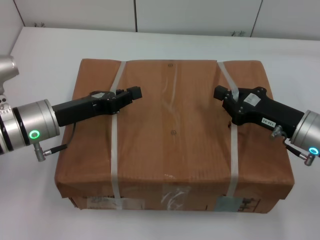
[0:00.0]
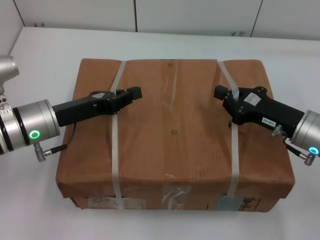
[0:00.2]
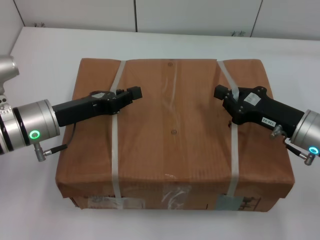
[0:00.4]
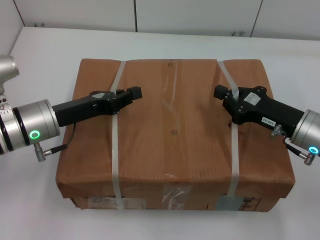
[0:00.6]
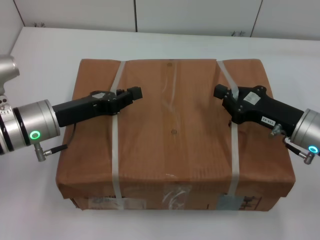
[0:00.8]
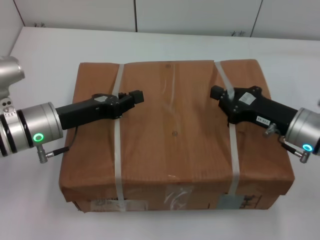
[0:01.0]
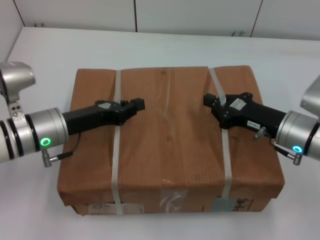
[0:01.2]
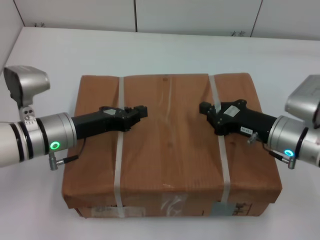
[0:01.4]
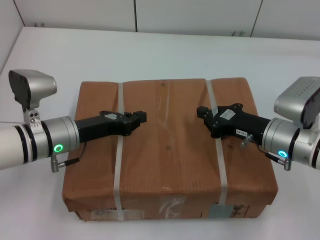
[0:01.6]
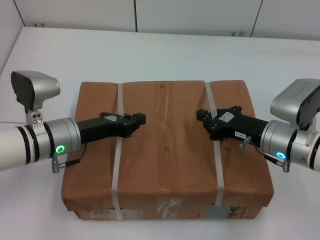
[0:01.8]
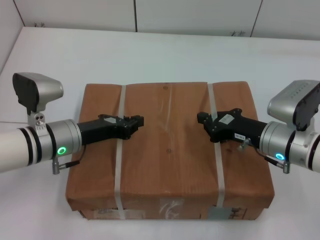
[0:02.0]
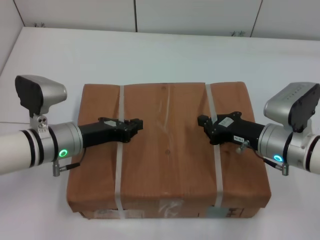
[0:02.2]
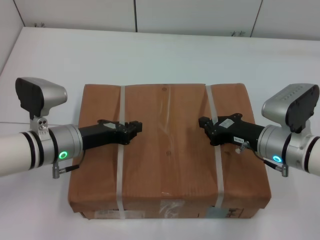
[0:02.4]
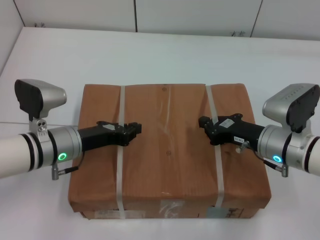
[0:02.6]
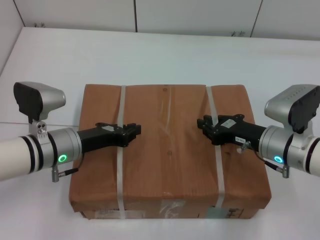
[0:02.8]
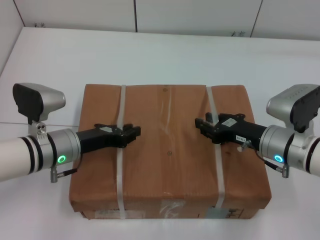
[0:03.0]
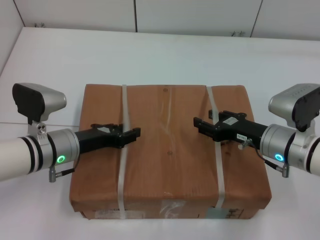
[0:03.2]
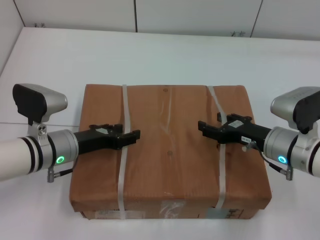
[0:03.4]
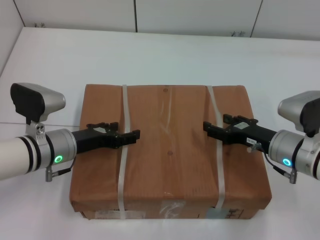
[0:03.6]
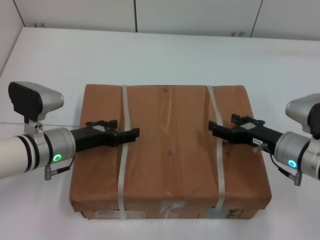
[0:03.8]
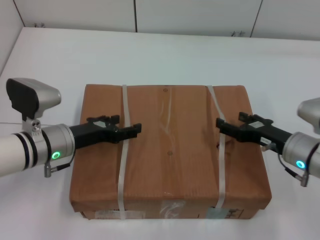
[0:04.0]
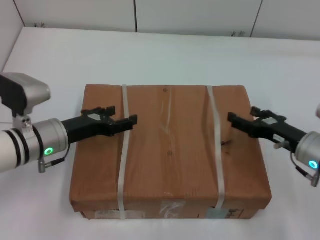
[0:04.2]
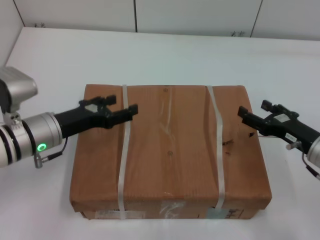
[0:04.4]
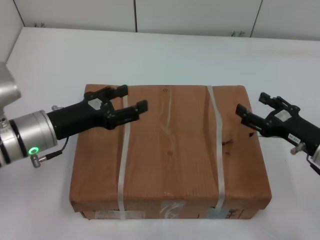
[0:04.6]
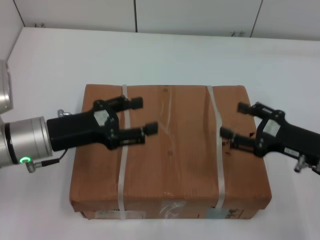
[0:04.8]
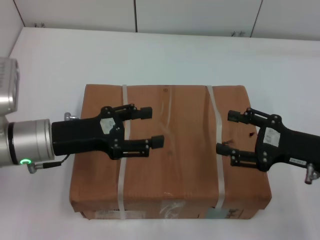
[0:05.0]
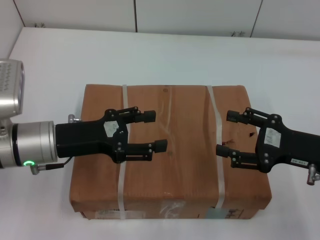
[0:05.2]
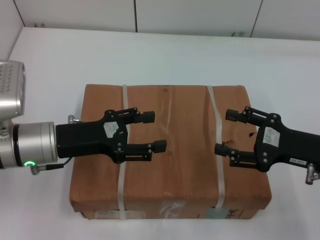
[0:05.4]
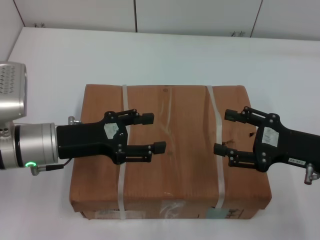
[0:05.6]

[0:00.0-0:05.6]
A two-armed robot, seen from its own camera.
Task of the whole recording: place the box on the table with both arms.
Step, 0:00.0 to 0:02.4: Place the box on the table with left gripper.
Step, 0:00.0 to 0:02.4: Place the box on the table with right gripper.
Step, 0:02.6 to 0:03.6: Loosen the box on the table with left gripper.
Step, 0:02.6 to 0:03.6: Loosen the box on the table with right gripper.
0:02.8 to 0:04.2: The right gripper is displaced to the right by some 5 cm, and opens up; the left gripper opens its fingers.
0:04.2 to 0:05.6: The right gripper is displaced upward by about 5 cm. The left gripper ends up approximately 5 cm from where it was.
